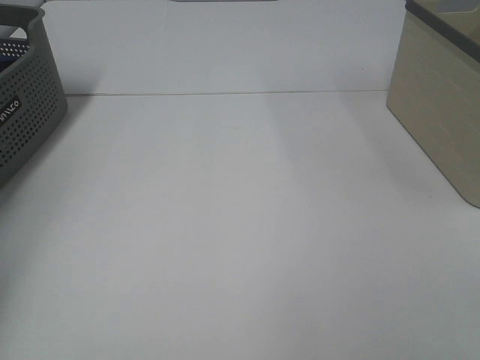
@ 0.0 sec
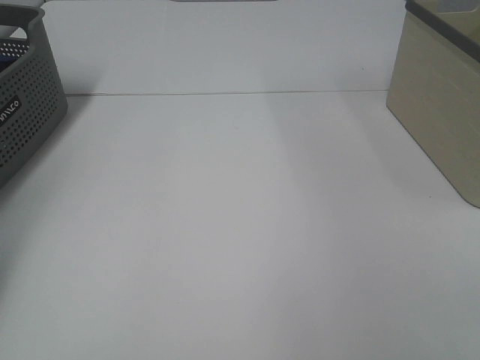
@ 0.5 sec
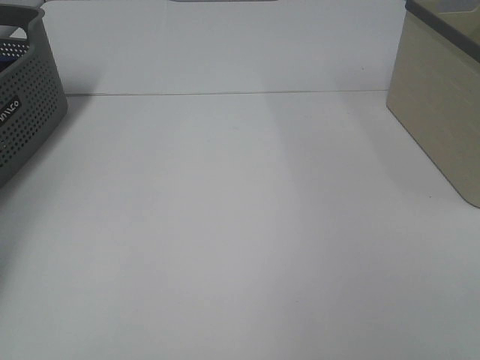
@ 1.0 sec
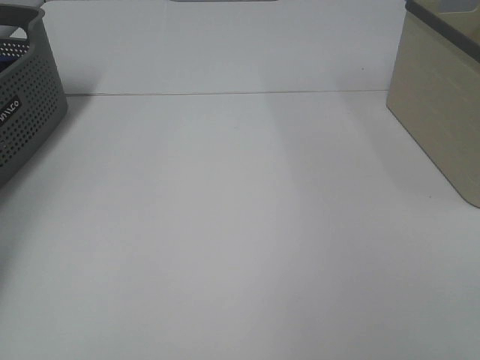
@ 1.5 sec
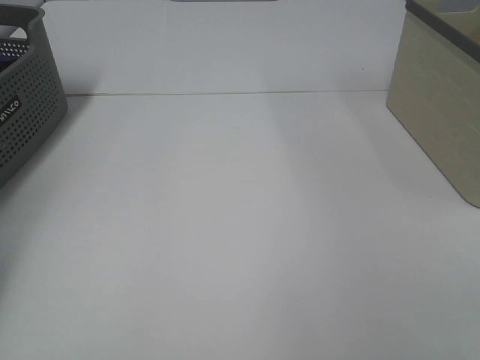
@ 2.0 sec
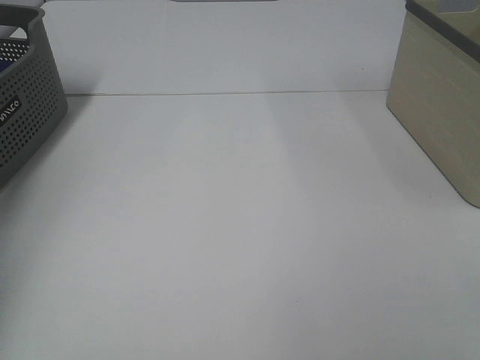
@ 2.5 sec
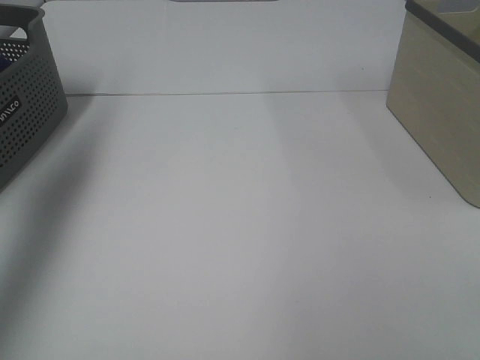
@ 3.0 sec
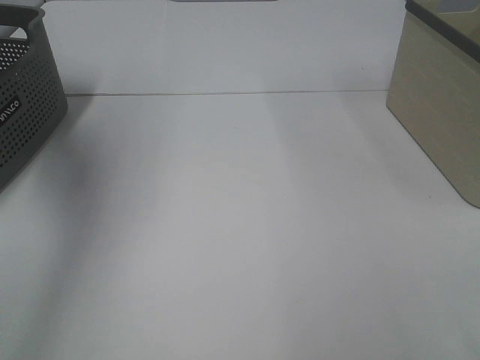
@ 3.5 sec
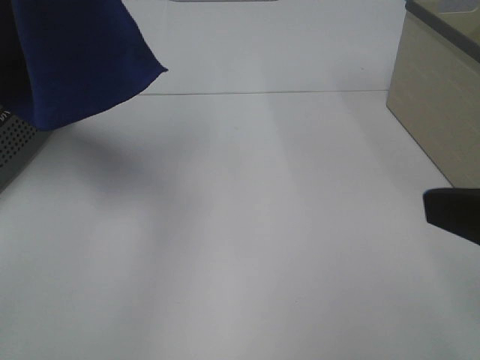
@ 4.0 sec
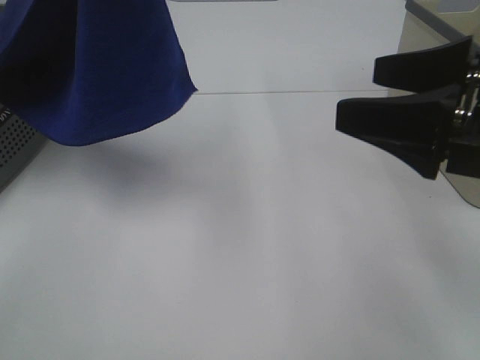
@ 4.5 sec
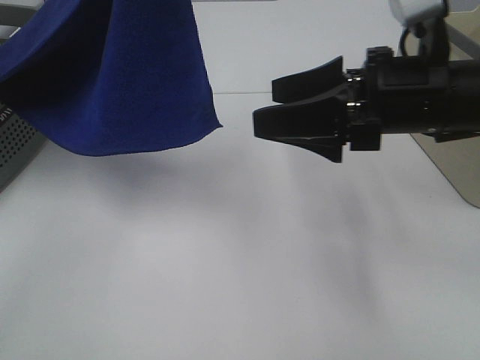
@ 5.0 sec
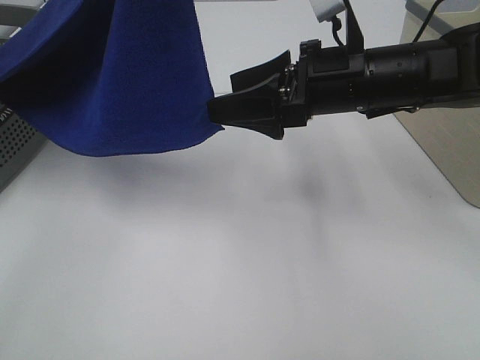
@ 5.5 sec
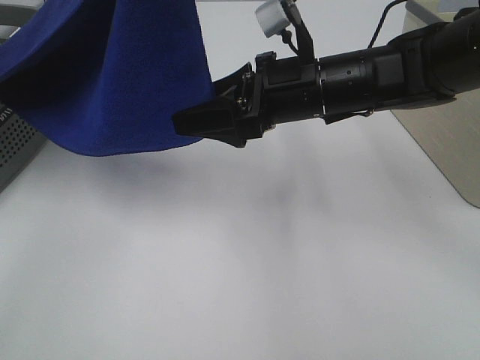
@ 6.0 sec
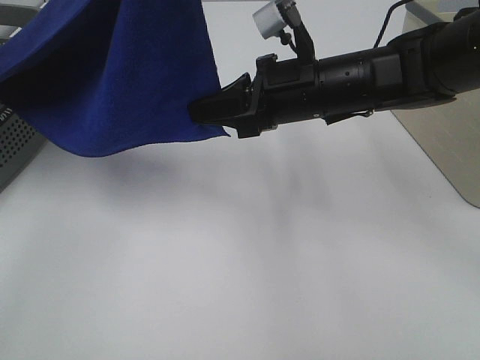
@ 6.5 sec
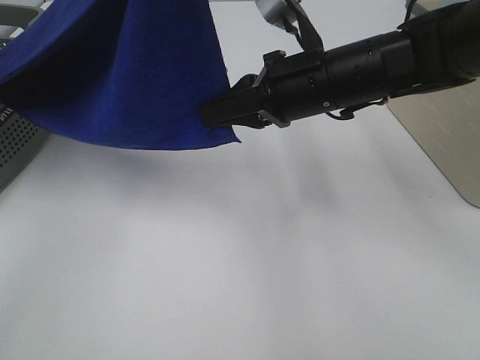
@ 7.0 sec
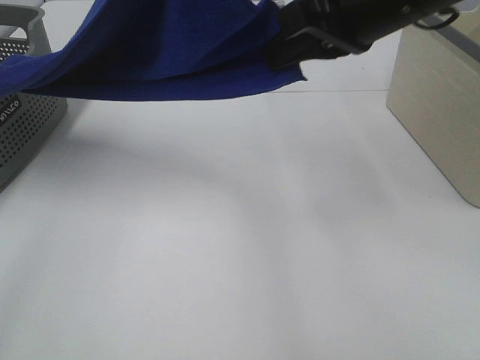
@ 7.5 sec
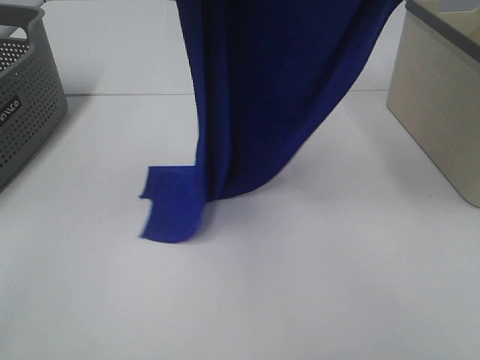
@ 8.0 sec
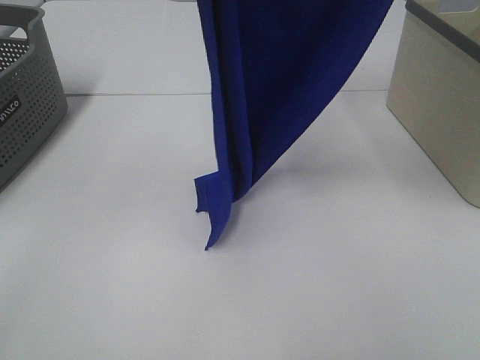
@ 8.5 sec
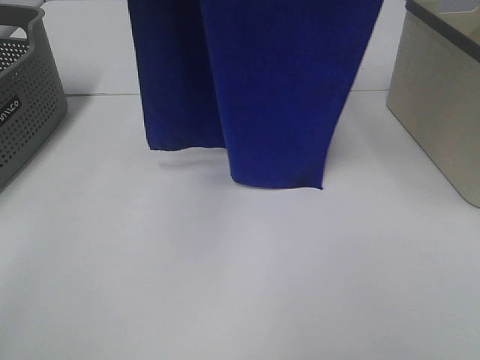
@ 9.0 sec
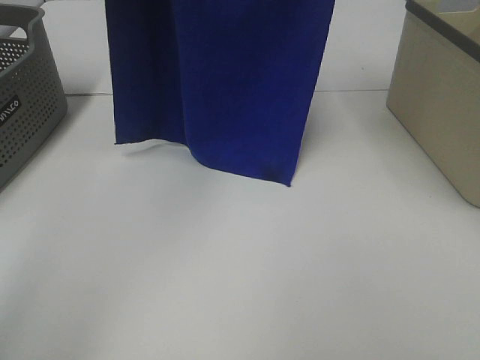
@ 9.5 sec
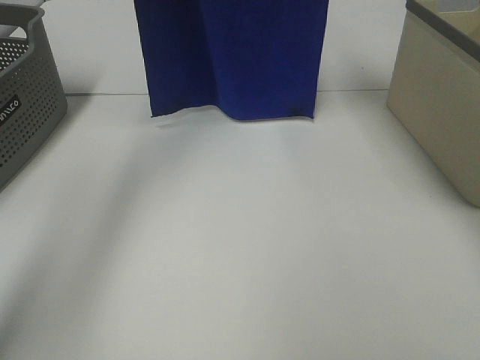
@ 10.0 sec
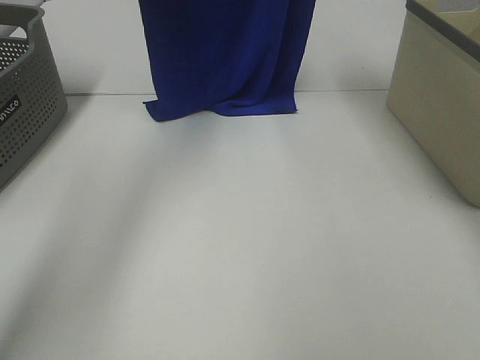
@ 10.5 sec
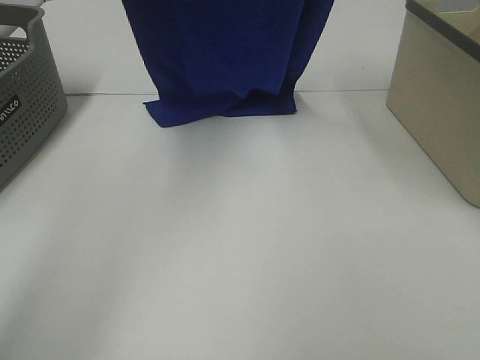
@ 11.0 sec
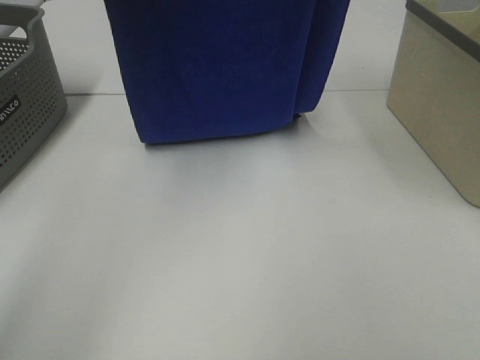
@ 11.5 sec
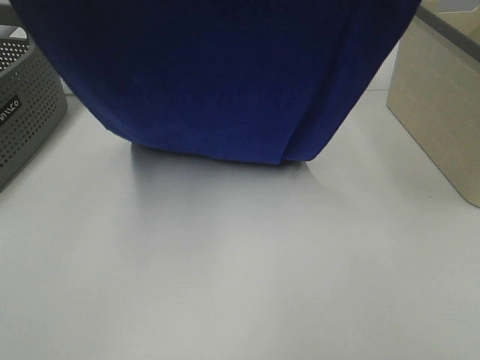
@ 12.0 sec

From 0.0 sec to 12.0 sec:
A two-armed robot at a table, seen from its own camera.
Task of the whole recording: Remove the towel and place it.
Step, from 2.5 sec to 6.5 sec: Right hand: grab a corner of the blue towel and straighten it.
Step, from 7.0 sec to 11.0 sec: Left hand: spread the blue towel flat on the table.
Step, from 7.0 sec to 11.0 sec: Right hand: spread the blue towel flat on the table.
From 2.0 sec to 4.0 sec: The right gripper heads forward, covering roughly 10 cm; the left gripper goes approximately 40 cm to the right, upward and backward.
From 4.0 sec to 6.0 sec: The right gripper moves forward, to the left and downward, roughly 30 cm. Meanwhile the left gripper moves to the right, about 10 cm.
From 6.0 sec to 8.0 sec: The right gripper moves upward, roughly 25 cm, and closes.
From 8.0 sec to 10.0 sec: The right gripper moves forward, some 15 cm. The left gripper is displaced forward and to the left by approximately 20 cm.
From 10.0 sec to 12.0 sec: Both grippers travel together backward, approximately 20 cm.

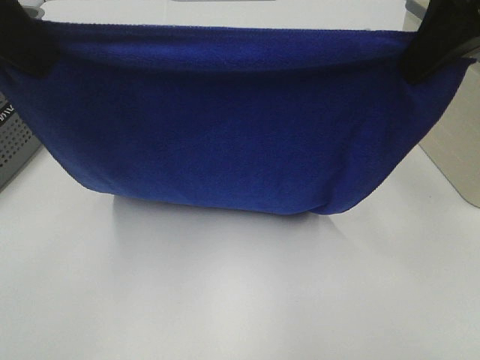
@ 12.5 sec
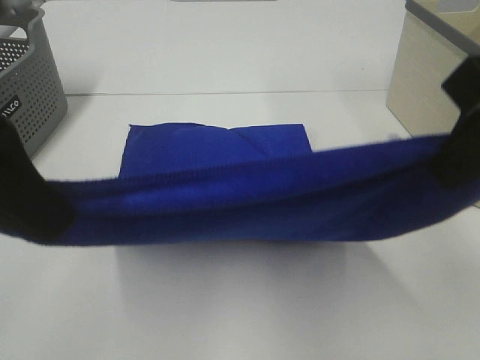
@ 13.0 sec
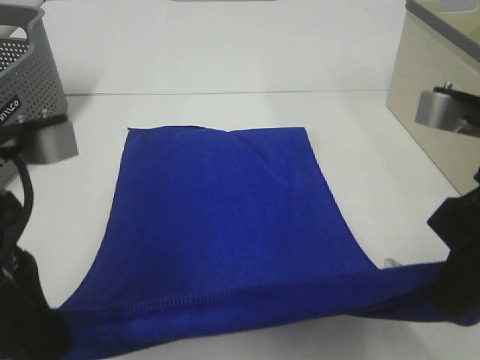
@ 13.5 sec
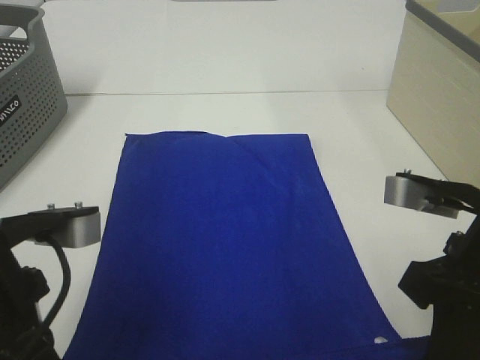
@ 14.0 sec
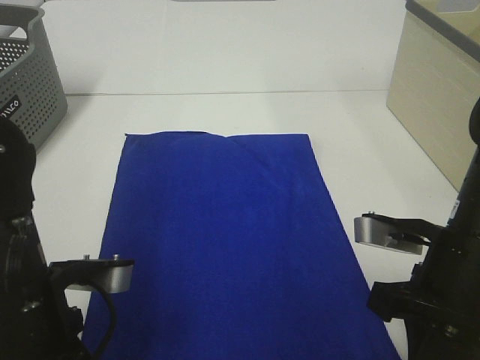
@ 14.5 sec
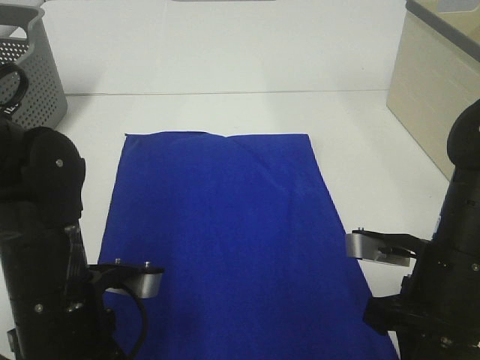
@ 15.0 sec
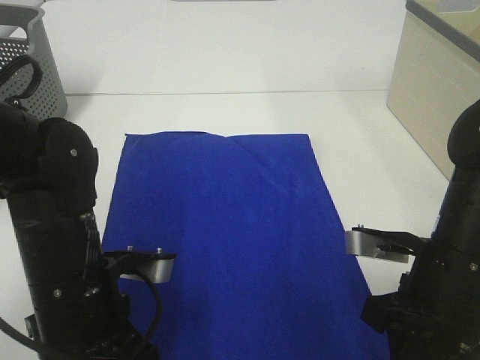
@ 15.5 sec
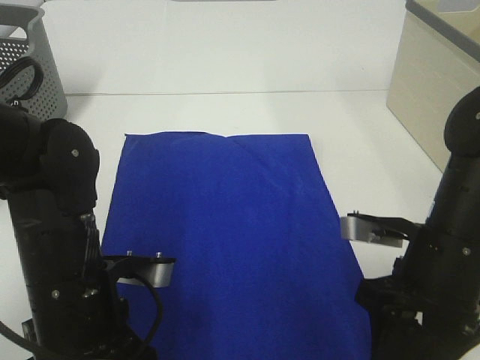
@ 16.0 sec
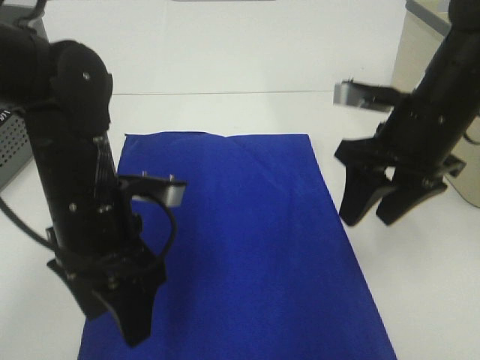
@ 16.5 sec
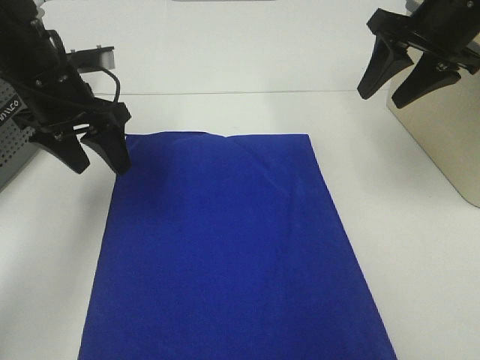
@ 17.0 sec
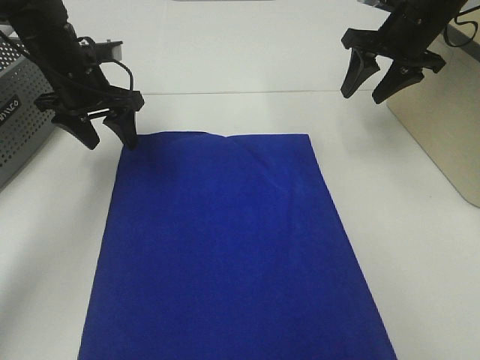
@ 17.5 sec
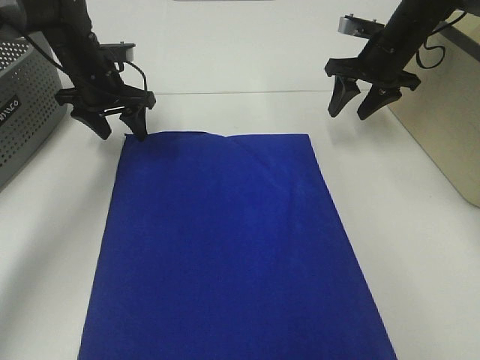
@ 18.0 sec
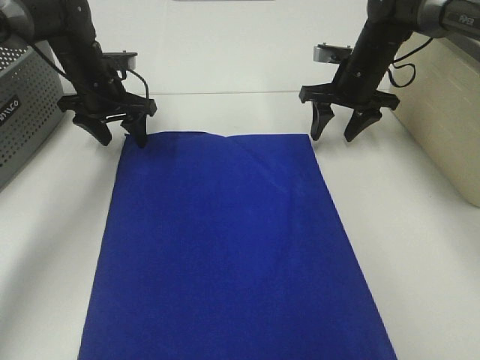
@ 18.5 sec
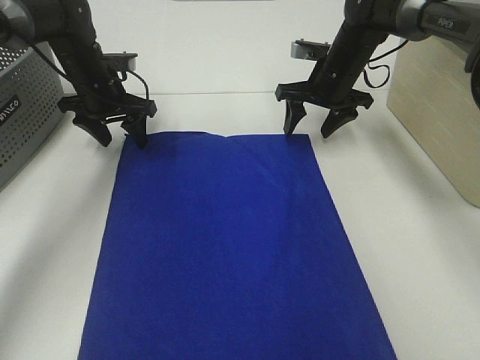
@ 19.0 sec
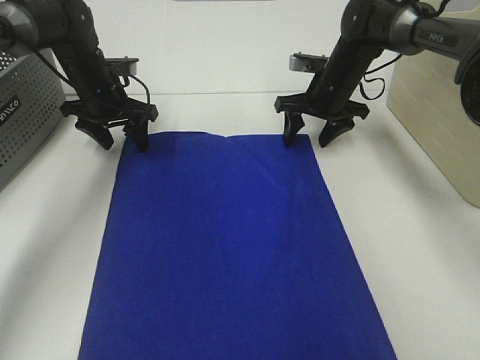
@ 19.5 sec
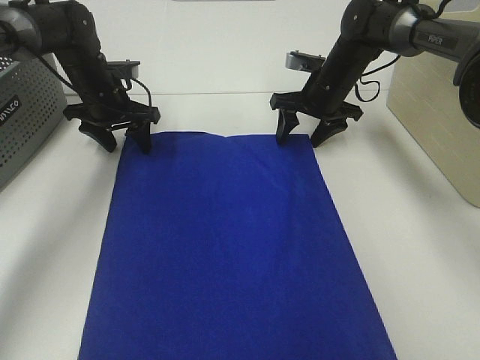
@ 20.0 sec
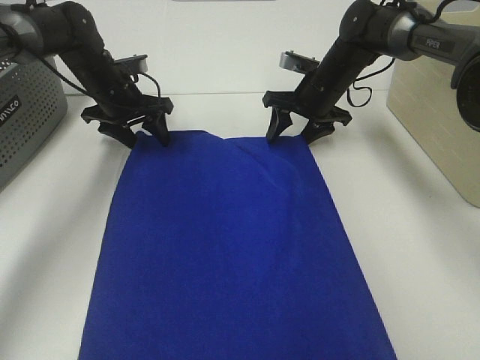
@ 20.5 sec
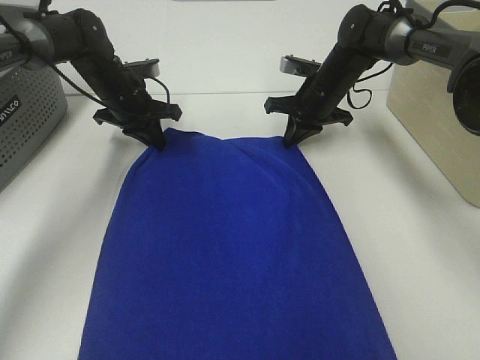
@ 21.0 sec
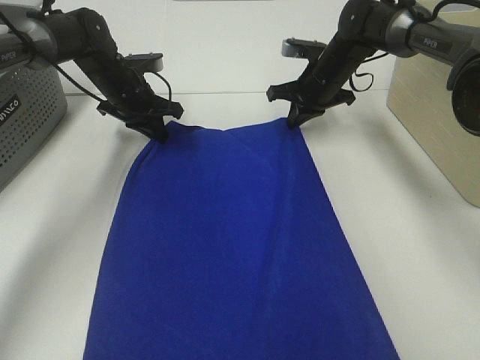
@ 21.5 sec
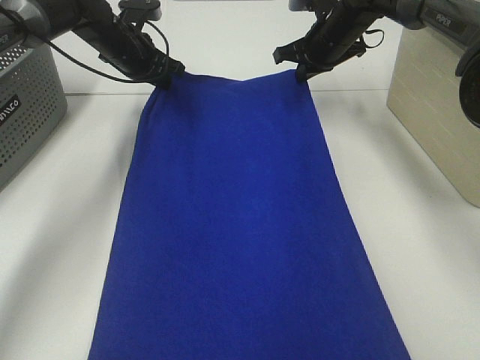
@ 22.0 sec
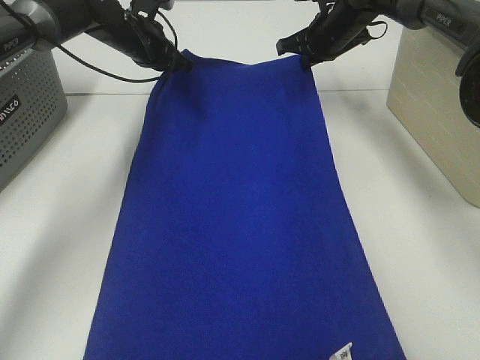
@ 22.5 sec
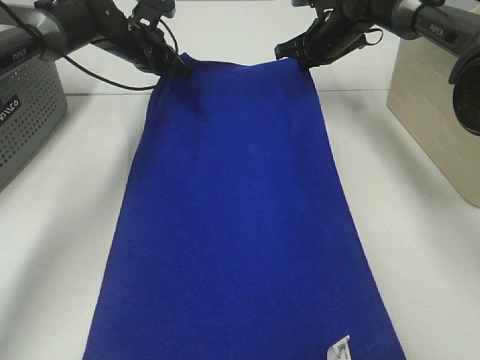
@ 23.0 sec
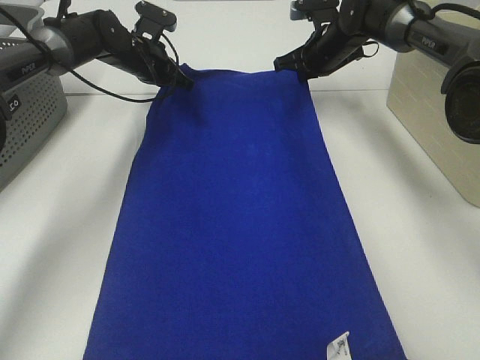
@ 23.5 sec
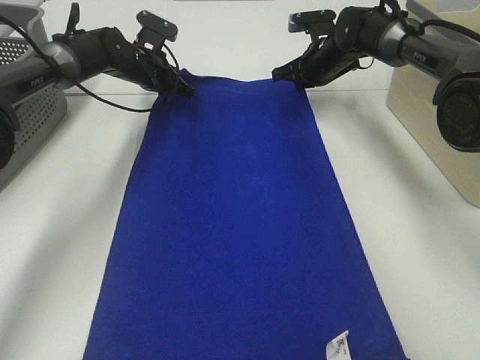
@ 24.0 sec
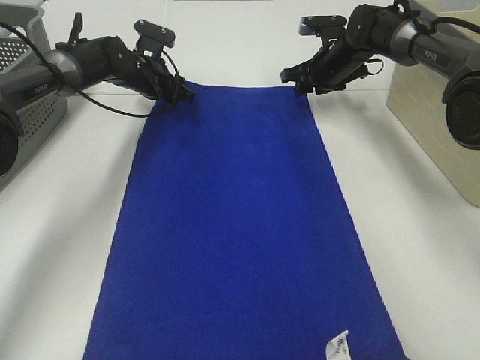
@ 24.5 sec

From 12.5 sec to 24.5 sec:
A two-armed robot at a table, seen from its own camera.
Task of the whole recording: Remove the towel and place it.
Step, from 12.5 sec to 18.0 sec: Left hand:adjust the blue towel.
Step, from 12.5 sec to 18.0 sec: Right hand:adjust the blue towel.
From 12.5 sec to 14.5 sec: Both grippers travel together downward, some 25 cm.
From 14.5 sec to 16.5 sec: The left gripper shifts some 10 cm forward, and opens; the right gripper shifts some 15 cm forward and upward, and opens up.
From 16.5 sec to 18.5 sec: Both grippers travel together forward, roughly 25 cm.
From 18.5 sec to 20.5 sec: The right gripper changes place by roughly 5 cm.
From 20.5 sec to 22.5 sec: Both grippers travel together upward, approximately 5 cm. The right gripper closes its fingers; the left gripper closes its fingers.
From 22.5 sec to 24.5 sec: The two grippers go some 5 cm downward. The right gripper opens its fingers. Meanwhile the left gripper opens.

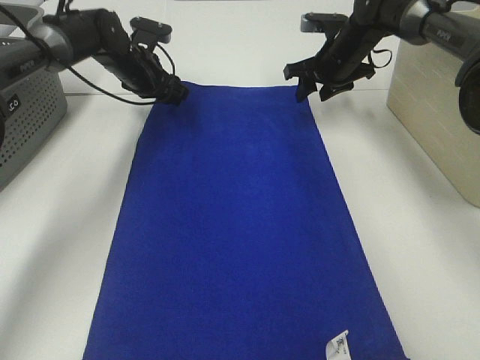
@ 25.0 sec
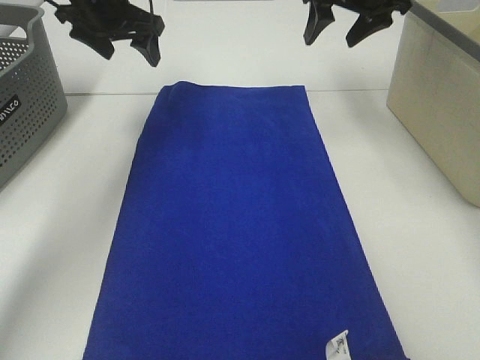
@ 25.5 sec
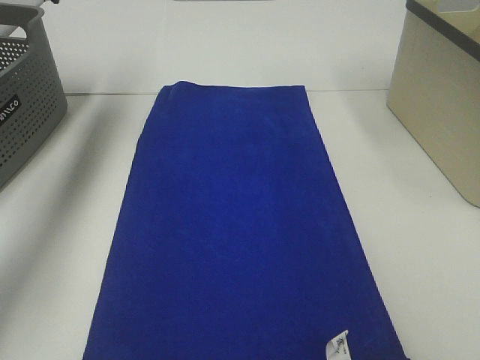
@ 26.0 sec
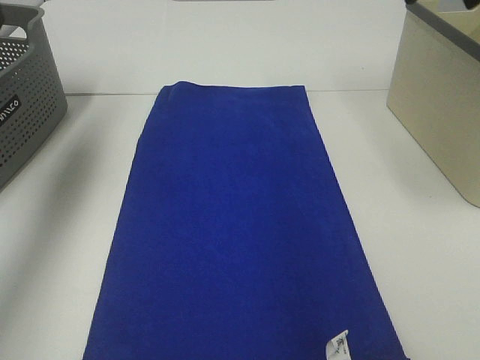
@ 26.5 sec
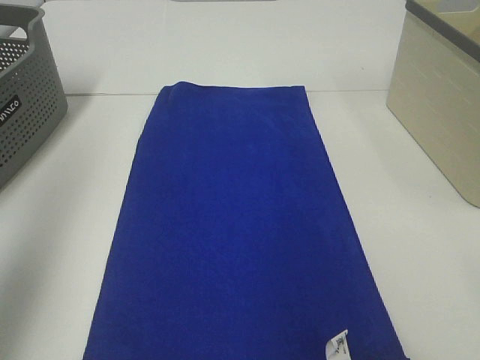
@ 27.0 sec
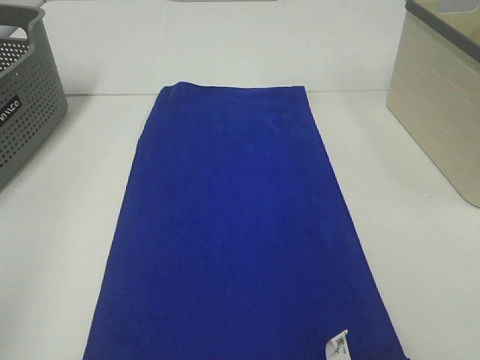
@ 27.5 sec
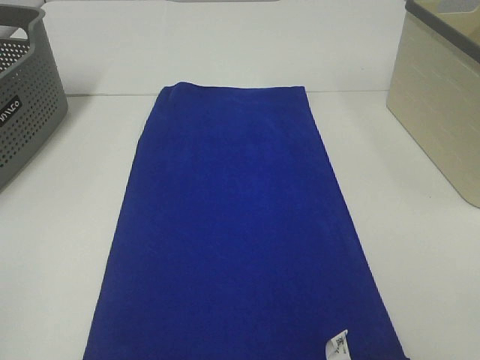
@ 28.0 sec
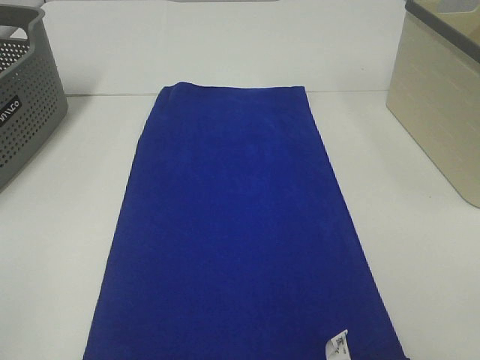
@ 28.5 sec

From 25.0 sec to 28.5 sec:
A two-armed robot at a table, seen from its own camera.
Task of the whole recording: Remove the towel and place it.
From 25.0 sec to 27.0 sec: The two grippers go roughly 50 cm backward and upward.
From 27.0 sec to 28.5 sec: The left gripper heads backward and downward, covering some 20 cm.
